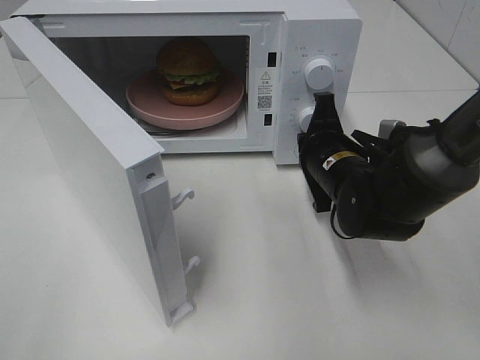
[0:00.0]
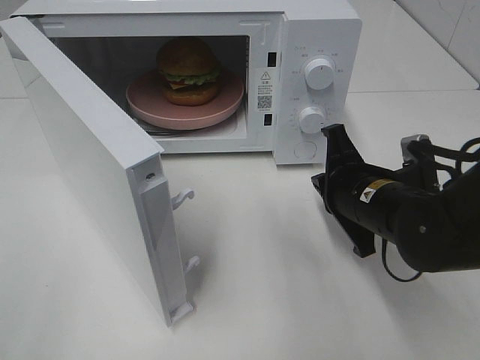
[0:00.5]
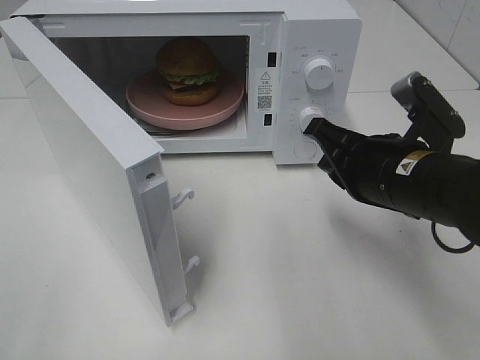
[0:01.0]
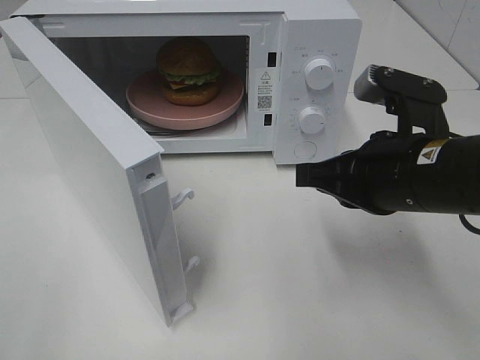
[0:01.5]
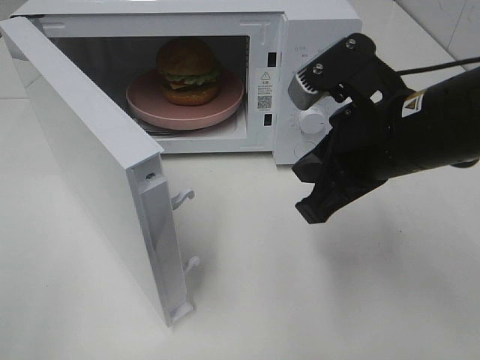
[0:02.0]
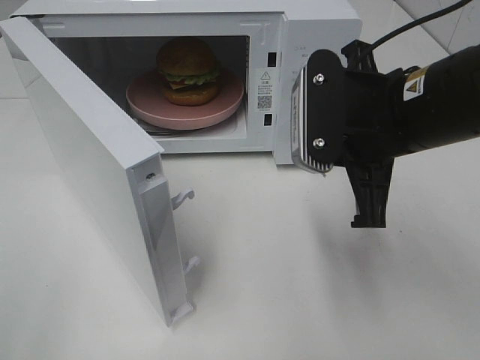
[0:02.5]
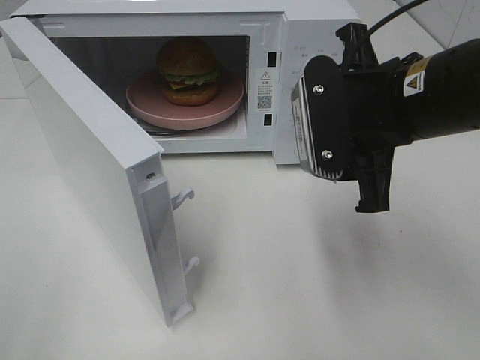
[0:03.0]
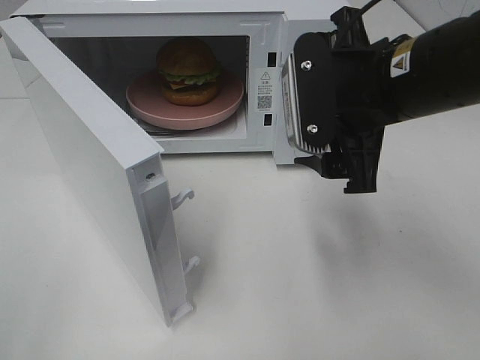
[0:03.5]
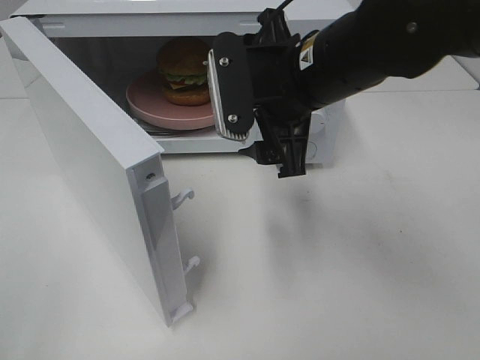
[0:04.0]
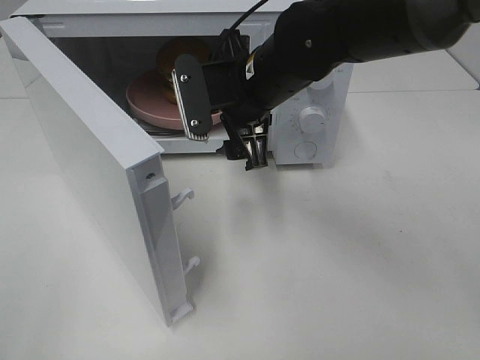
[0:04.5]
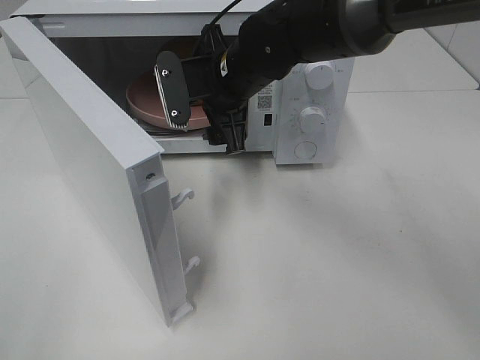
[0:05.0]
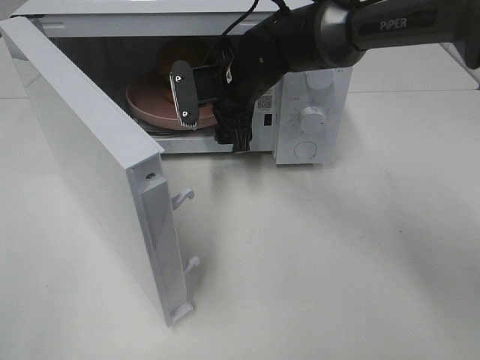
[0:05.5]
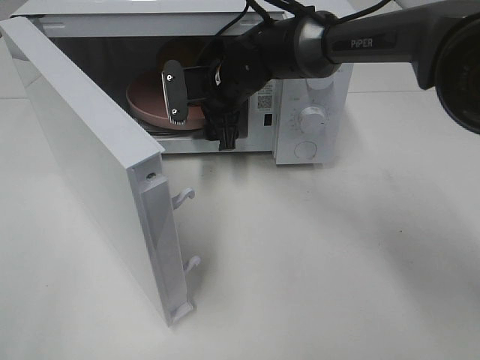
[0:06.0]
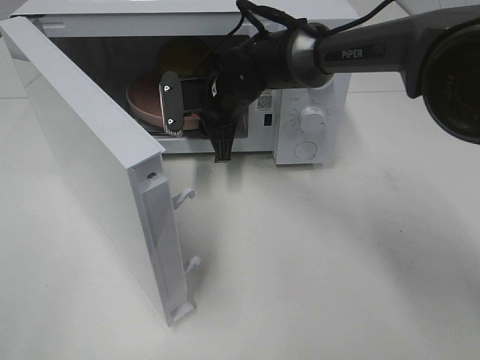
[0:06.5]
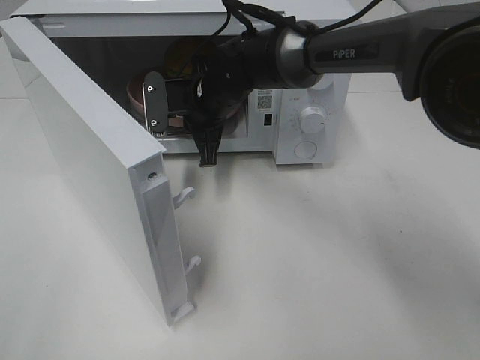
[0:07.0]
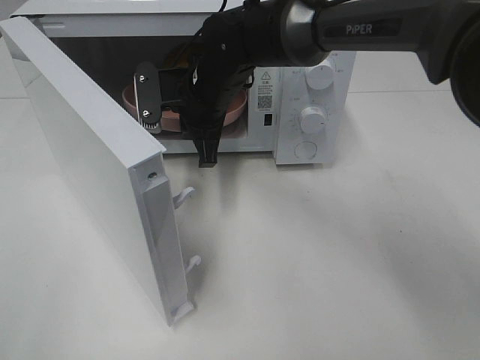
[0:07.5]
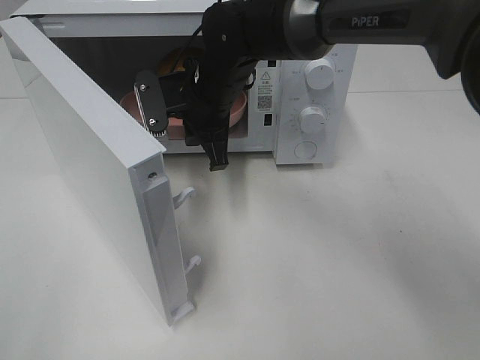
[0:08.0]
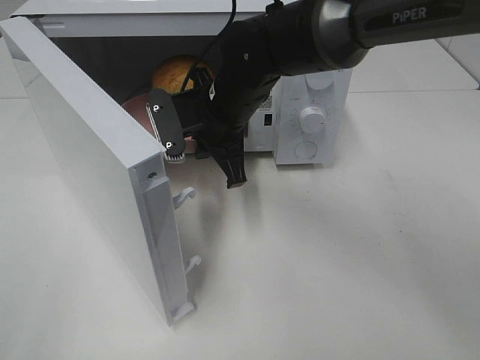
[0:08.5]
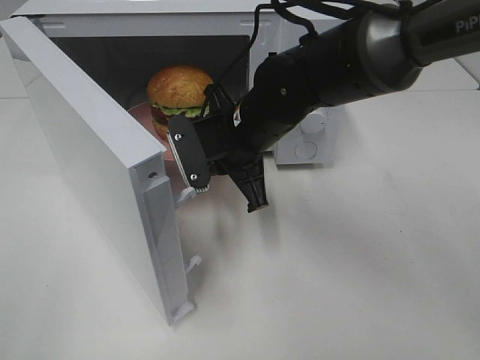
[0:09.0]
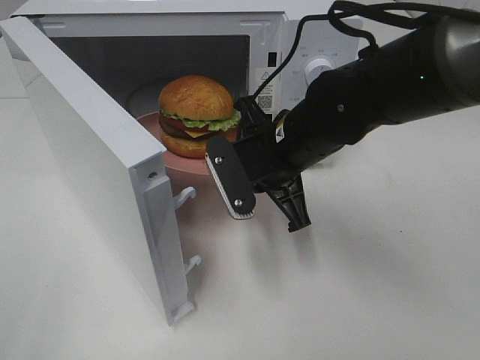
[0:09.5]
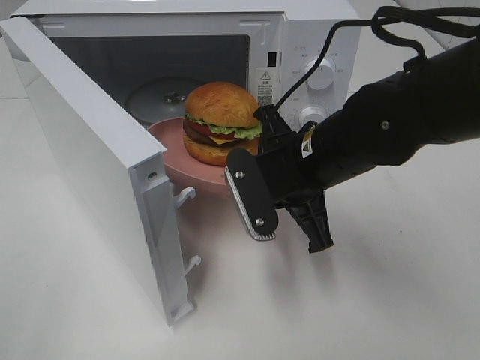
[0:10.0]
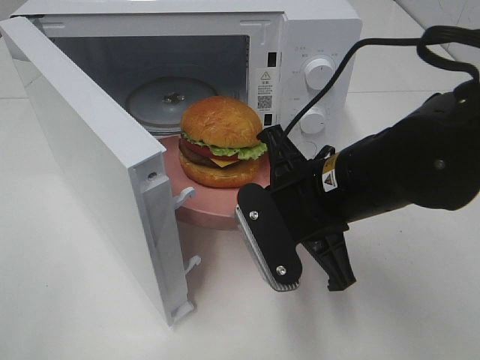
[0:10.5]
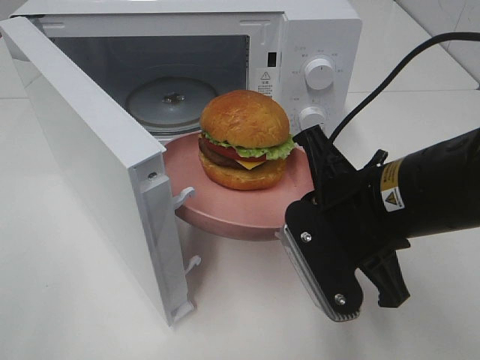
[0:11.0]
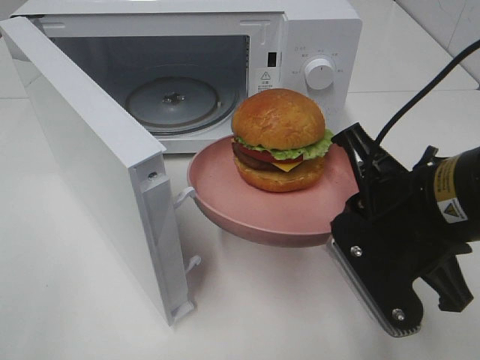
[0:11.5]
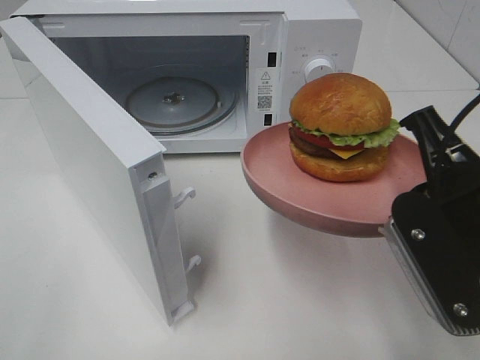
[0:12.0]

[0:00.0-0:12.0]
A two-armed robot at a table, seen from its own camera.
Task of the whole recording: Heat the burger.
Step, 0:00.5 to 0:06.5: Right hand: grab the plate with the hamburger.
0:00.0 to 0:02.0: The right gripper heads upward and backward, covering some 15 cm.
0:02.0 to 0:04.0: The right gripper is displaced to the left and forward by roughly 10 cm, and opens.
0:04.0 to 0:06.0: The right gripper travels forward, downward and to the left by about 20 cm.
0:06.0 to 0:08.0: The right gripper shifts by about 5 cm, and closes its fingers.
0:08.0 to 0:10.0: The right gripper shifts approximately 15 cm backward and to the right.
0:10.0 to 0:12.0: The right gripper shifts some 15 cm backward, to the right and upward.

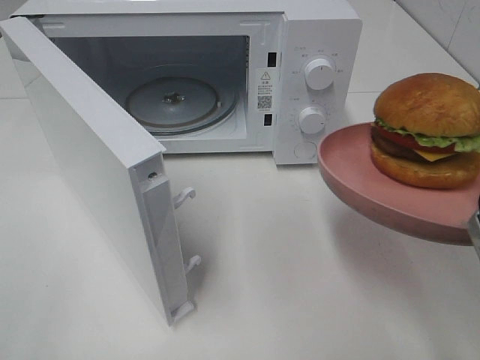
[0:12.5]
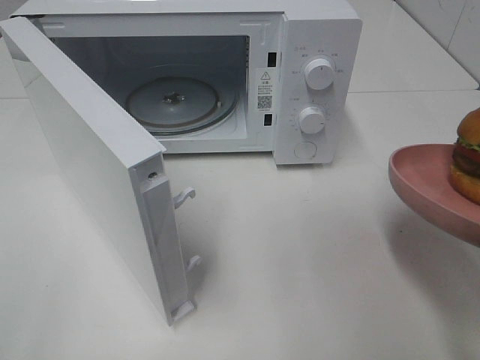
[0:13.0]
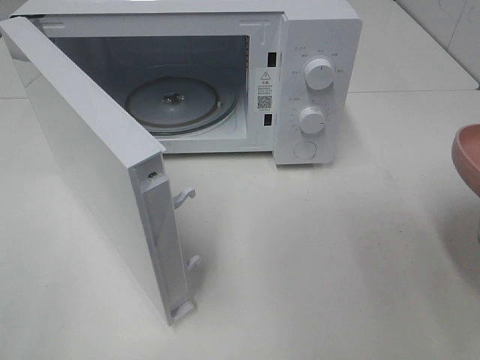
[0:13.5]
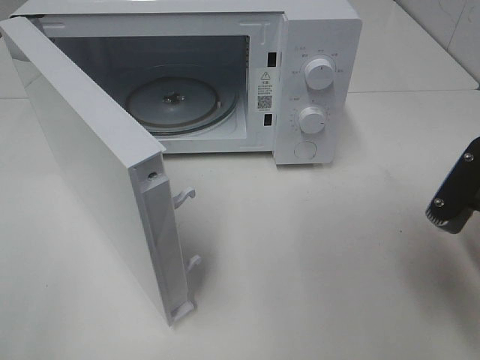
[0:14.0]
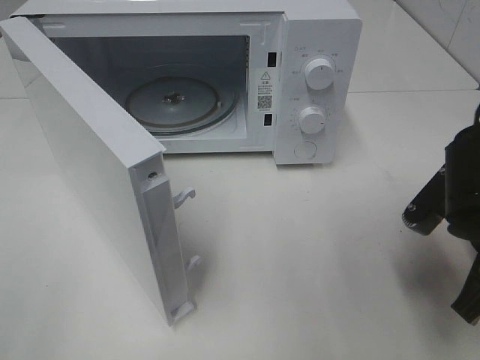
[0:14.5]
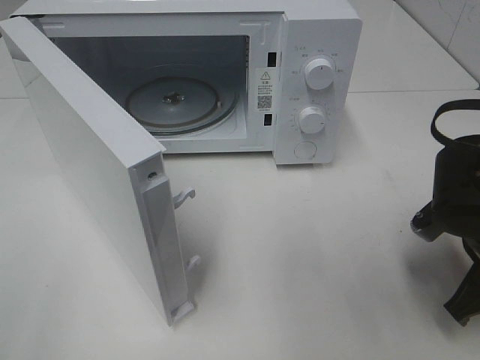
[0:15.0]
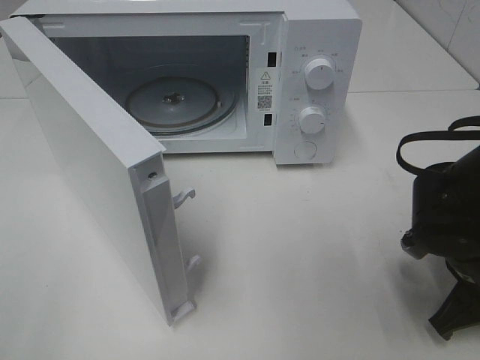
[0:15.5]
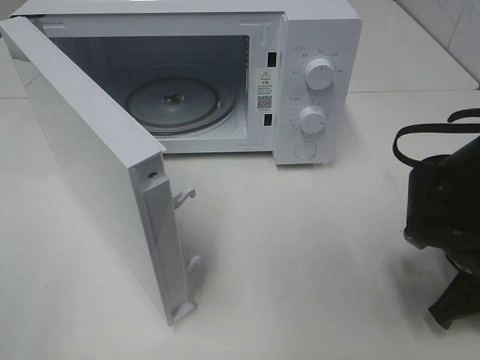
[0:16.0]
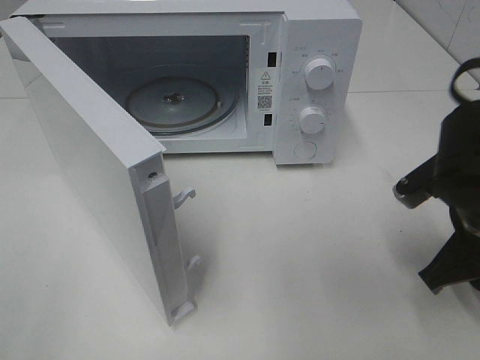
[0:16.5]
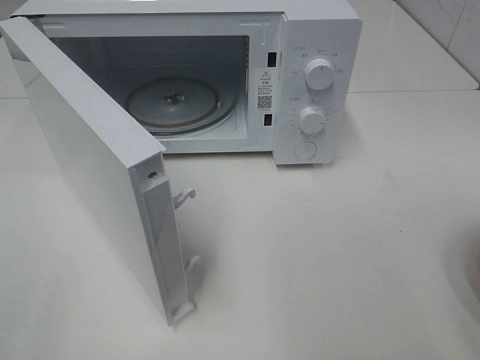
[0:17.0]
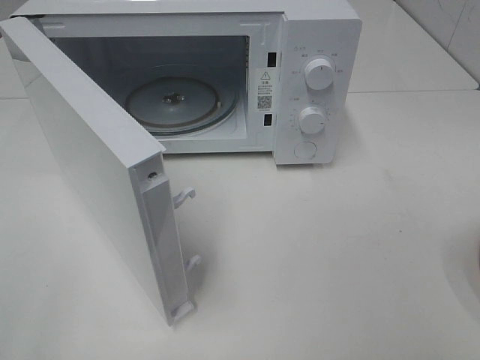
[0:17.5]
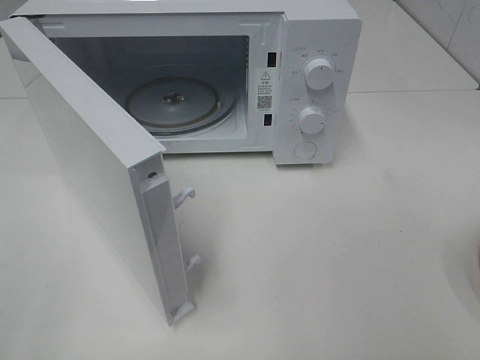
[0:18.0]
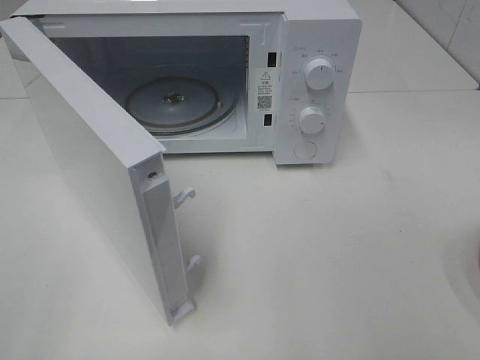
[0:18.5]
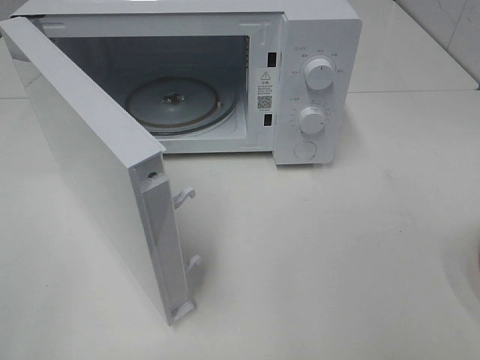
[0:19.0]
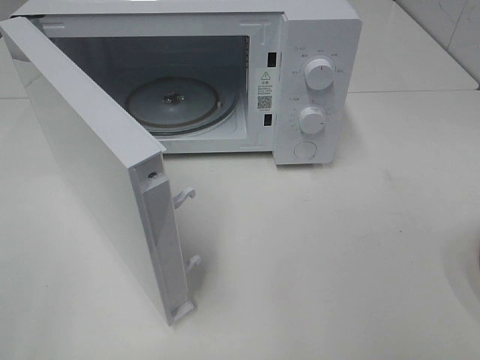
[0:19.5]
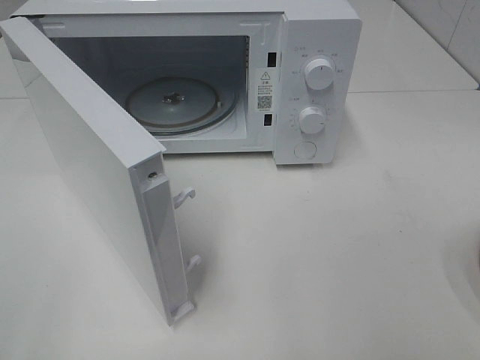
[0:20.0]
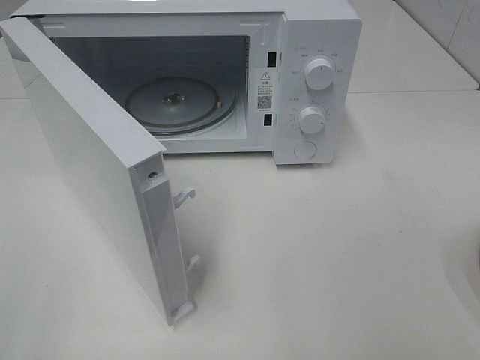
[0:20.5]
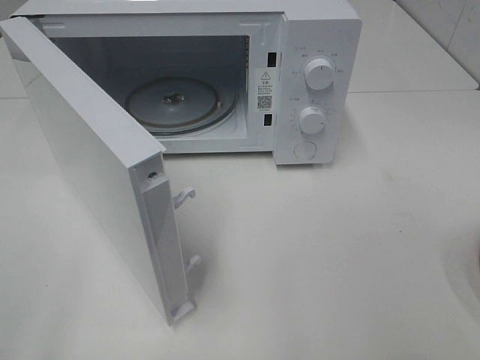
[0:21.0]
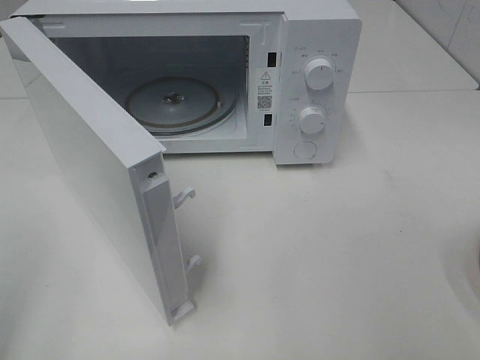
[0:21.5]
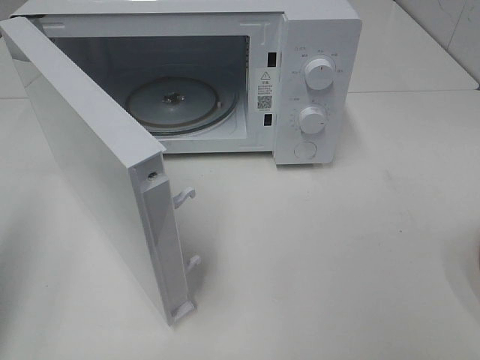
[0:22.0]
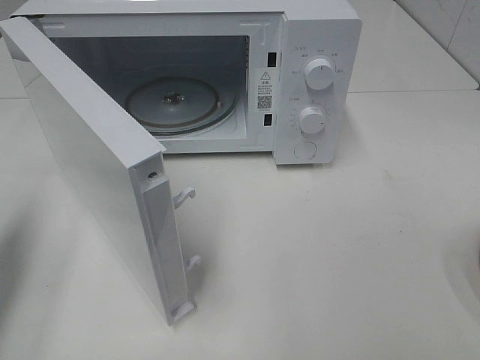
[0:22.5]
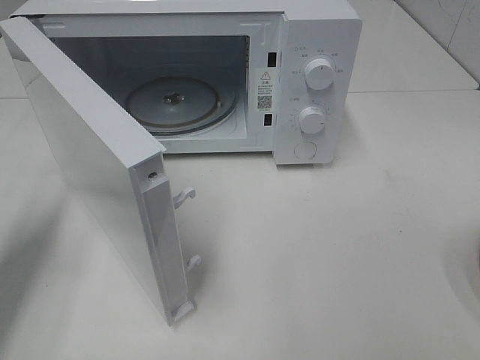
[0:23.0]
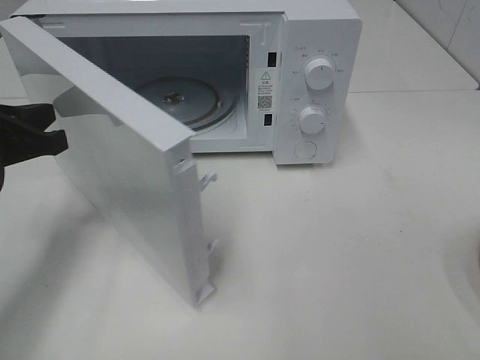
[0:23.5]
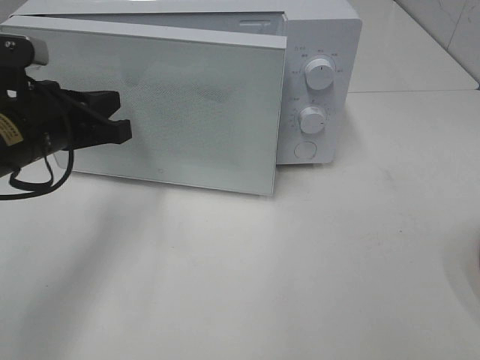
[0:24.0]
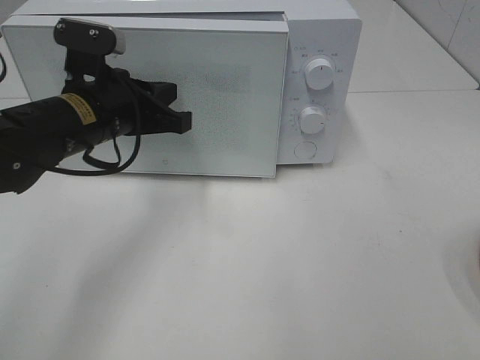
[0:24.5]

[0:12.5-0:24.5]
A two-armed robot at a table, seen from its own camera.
Task of the whole recording: Heat the burger.
Step, 0:12.5 to 0:15.5: Right hand: place the plate on the table.
0:12.5 to 0:14.5: The right gripper travels downward and forward by approximately 10 cm.
0:14.5 to 0:16.5: The right gripper opens its fingers.
0:16.5 to 0:18.5: The right gripper moves backward, upward and to the right, about 25 cm.
0:20.5 to 0:22.5: The left gripper shifts some 20 cm forward, and closes up.
0:22.5 to 0:24.5: The left gripper heads to the right and forward, covering roughly 25 cm.

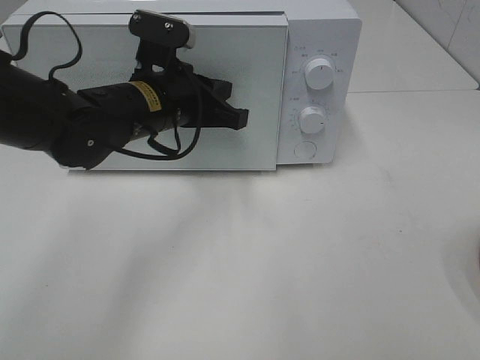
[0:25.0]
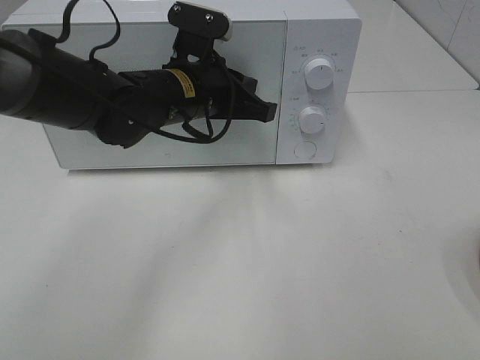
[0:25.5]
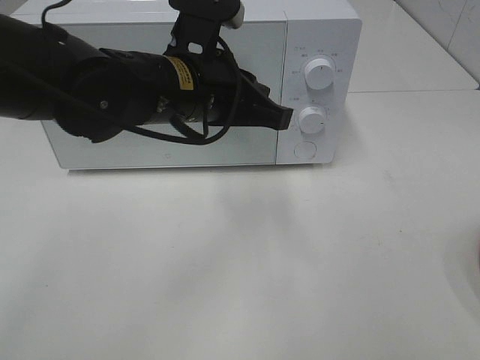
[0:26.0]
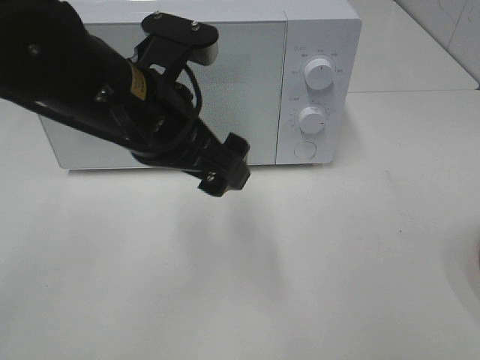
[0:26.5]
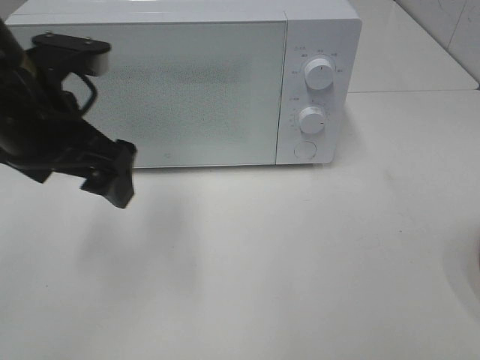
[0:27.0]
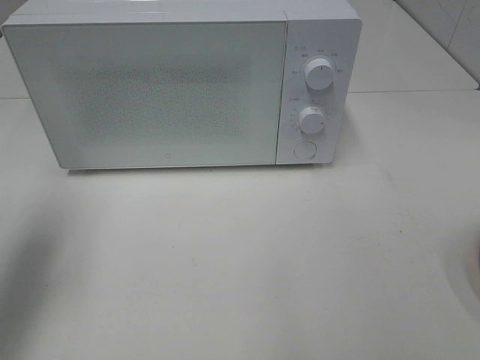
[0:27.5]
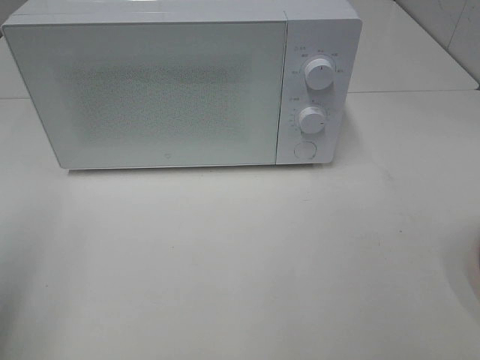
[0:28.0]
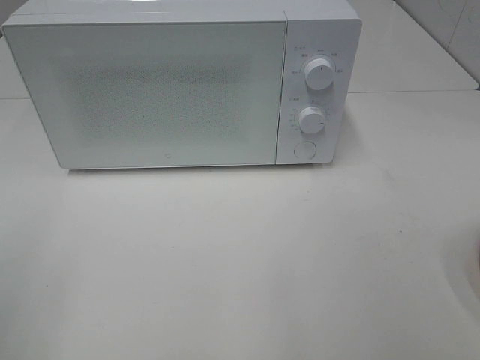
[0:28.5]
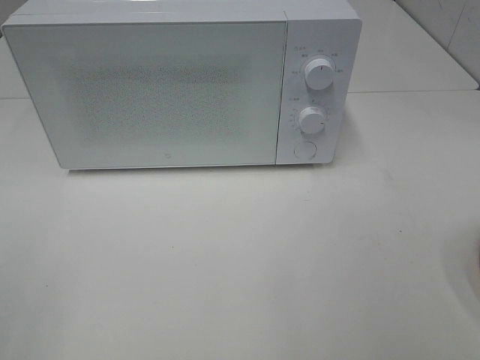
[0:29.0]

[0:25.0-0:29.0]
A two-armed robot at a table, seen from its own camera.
Task of the whole recording: Heat the burger.
0:25.0 to 0:27.0: The left gripper is displaced to the left, backward and upward by about 15 cm, and opens its fingers.
0:27.0 to 0:29.0: The left gripper is displaced backward and to the left by about 30 cm.
